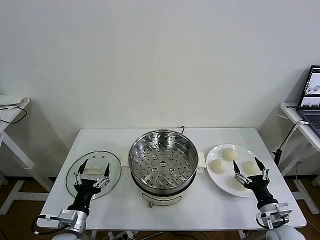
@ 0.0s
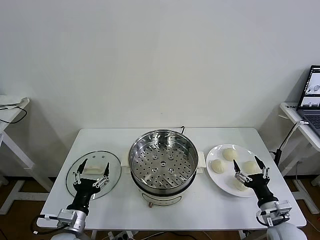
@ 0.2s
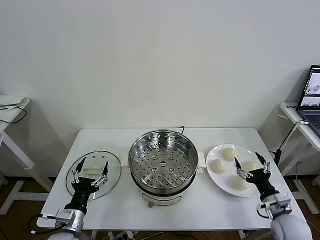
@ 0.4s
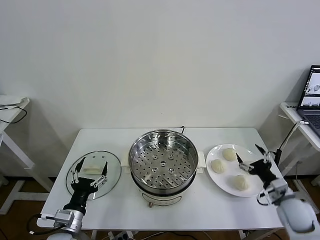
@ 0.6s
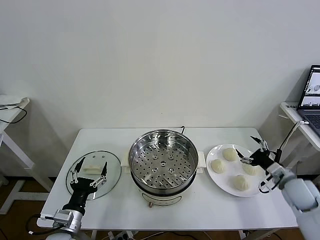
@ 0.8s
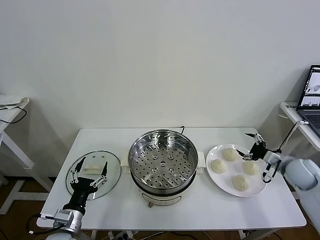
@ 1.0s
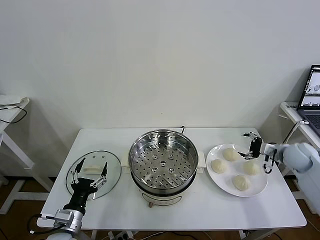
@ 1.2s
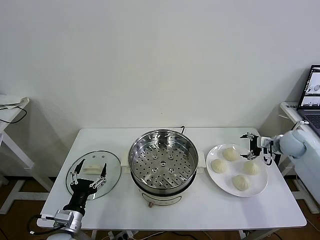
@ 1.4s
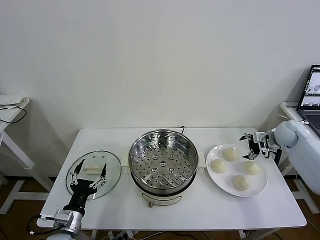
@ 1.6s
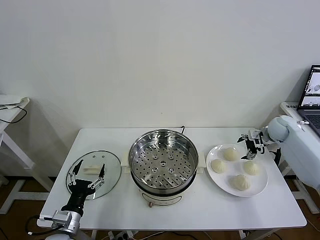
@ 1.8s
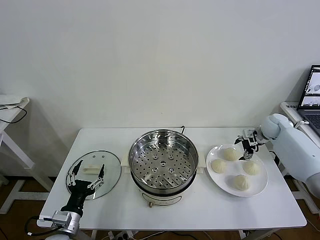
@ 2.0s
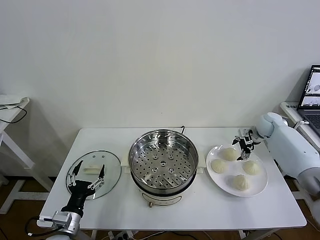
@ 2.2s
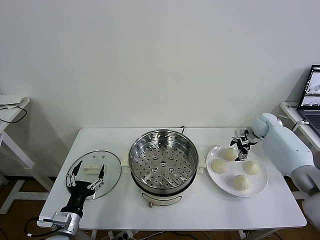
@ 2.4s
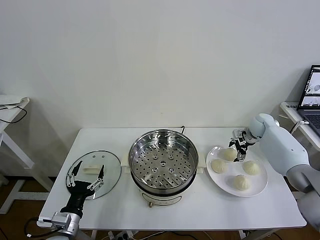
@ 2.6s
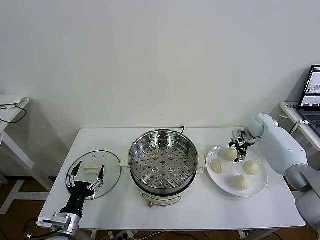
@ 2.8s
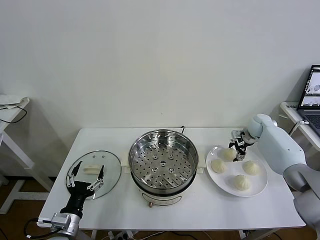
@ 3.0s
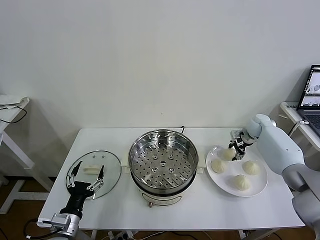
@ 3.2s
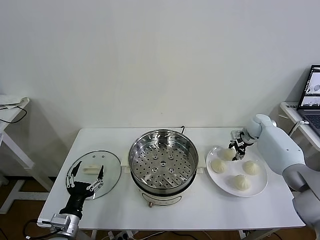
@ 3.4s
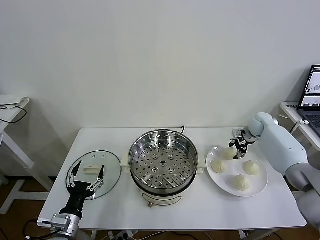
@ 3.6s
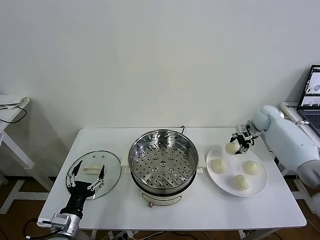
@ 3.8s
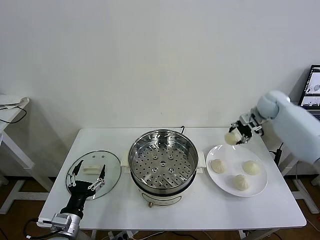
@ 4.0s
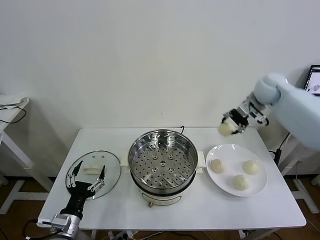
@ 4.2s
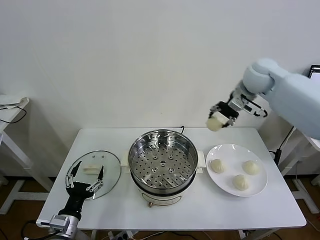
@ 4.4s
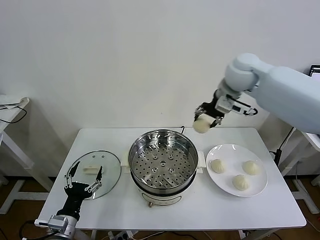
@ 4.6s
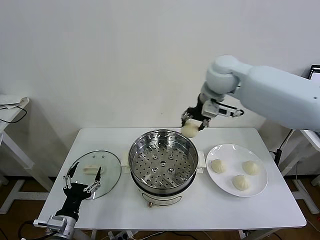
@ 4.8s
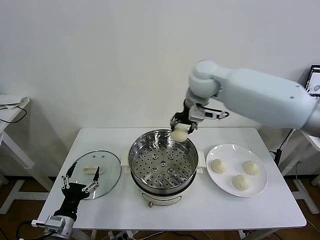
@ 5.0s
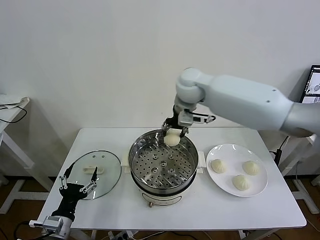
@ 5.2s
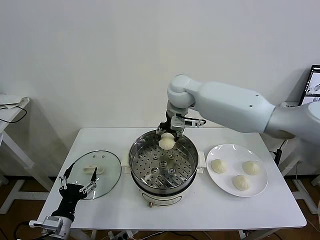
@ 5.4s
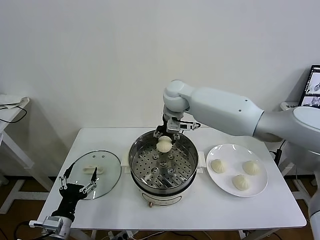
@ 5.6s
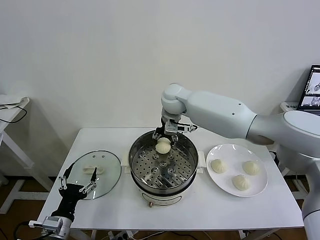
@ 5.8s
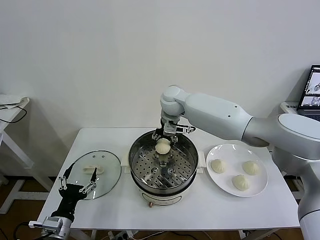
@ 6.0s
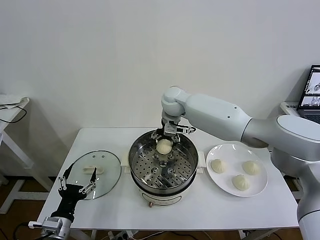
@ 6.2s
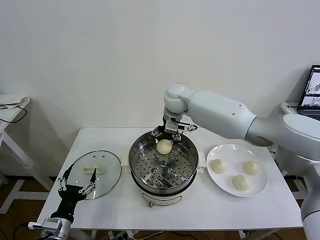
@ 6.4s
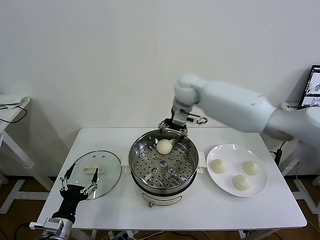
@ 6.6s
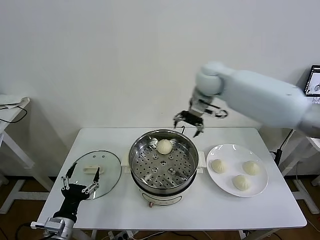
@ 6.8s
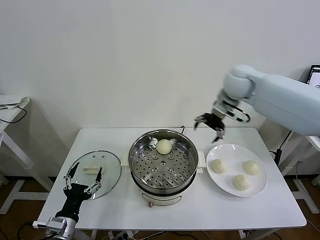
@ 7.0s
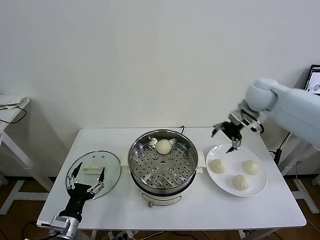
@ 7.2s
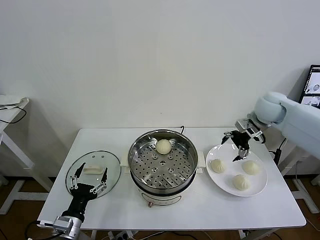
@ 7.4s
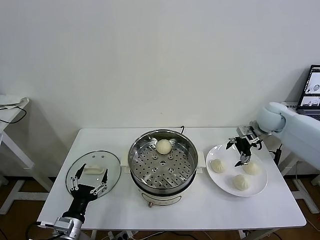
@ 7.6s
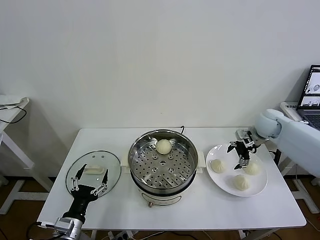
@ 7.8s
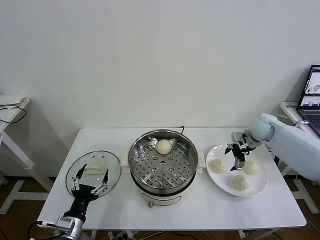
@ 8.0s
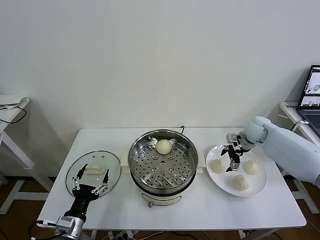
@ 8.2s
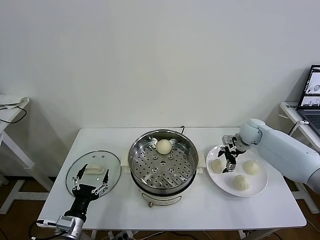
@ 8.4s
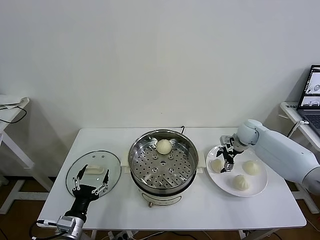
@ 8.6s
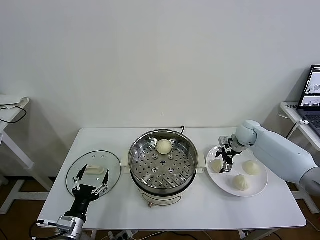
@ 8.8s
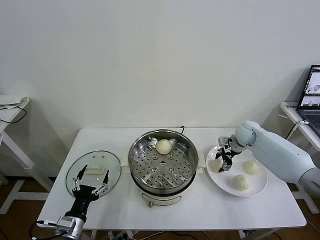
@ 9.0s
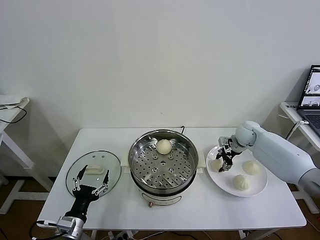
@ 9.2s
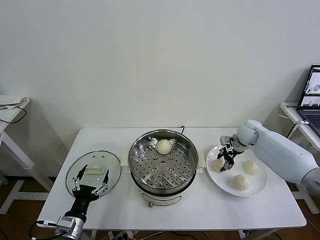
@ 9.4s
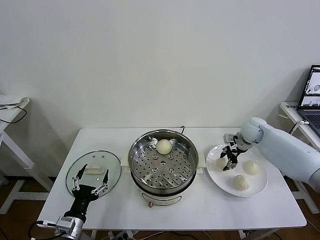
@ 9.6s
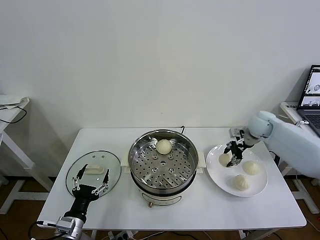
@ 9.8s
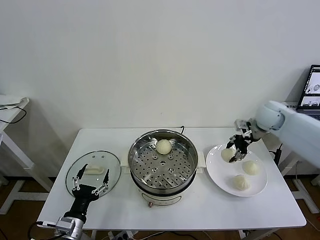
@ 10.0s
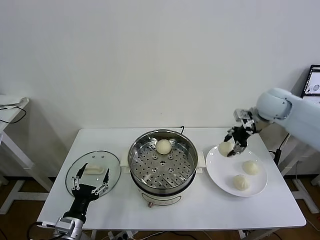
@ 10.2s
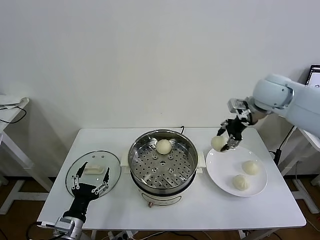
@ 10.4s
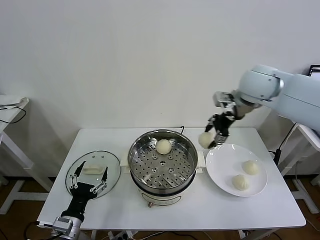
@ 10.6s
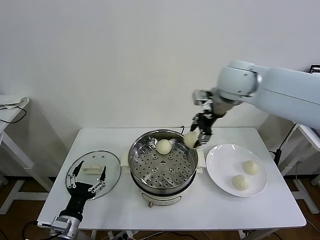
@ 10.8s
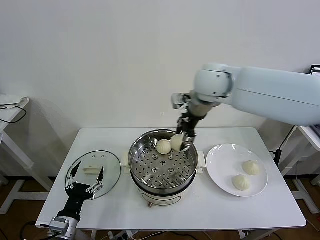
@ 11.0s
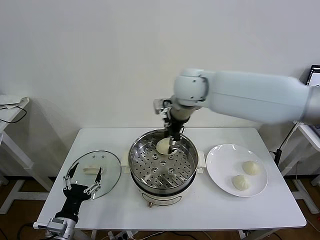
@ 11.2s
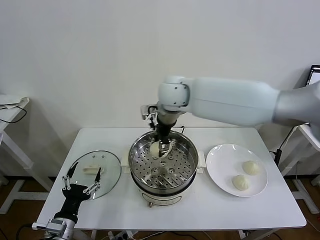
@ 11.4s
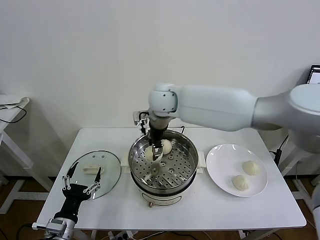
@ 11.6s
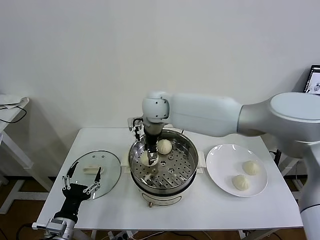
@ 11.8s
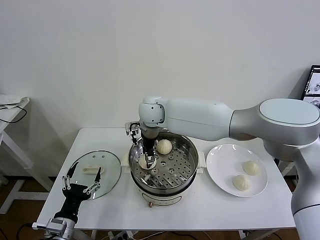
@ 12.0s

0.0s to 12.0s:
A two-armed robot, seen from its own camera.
Task of the whole recording: take steamed baozi put them in steamer then cover it.
Step, 0.0s to 3.2s: Grasp the baozi in the plate with right gripper.
Step, 3.4s to 6.2s: Place the baozi on the steamer with right gripper.
Step, 6.6s to 9.0s: Grasp the baozi in the plate with right gripper.
1.6s to 3.0s: The right gripper is displaced forward and to the left by approximately 10 cm, and closes.
3.0s to 4.4s: The right gripper shifts about 30 cm upward and to the left.
4.4s to 6.0s: The right gripper heads to the left and downward, covering about 25 cm, and opens.
6.0s to 7.6s: The right gripper goes about 35 cm to the right, and opens up.
7.6s to 9.0s: The right gripper goes some 10 cm downward, and closes its fingers.
9.0s to 10.4s: The right gripper heads upward, covering roughly 25 cm.
10.4s to 12.0s: The right gripper goes roughly 30 cm to the left.

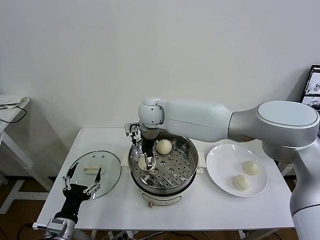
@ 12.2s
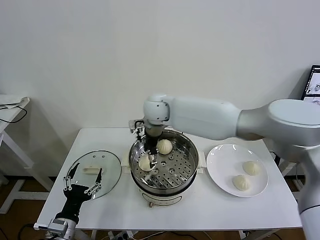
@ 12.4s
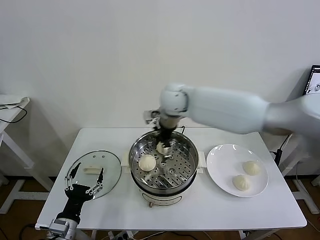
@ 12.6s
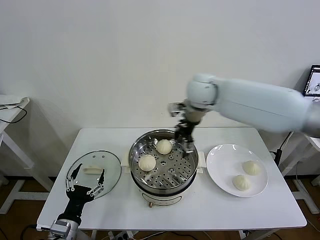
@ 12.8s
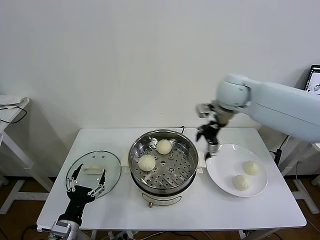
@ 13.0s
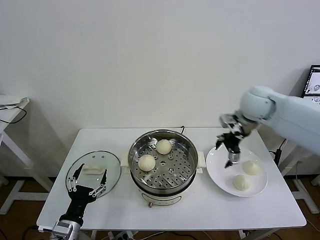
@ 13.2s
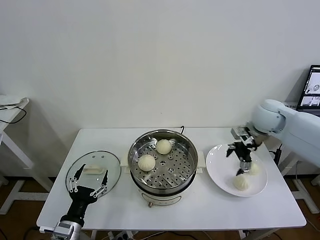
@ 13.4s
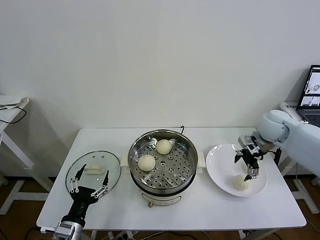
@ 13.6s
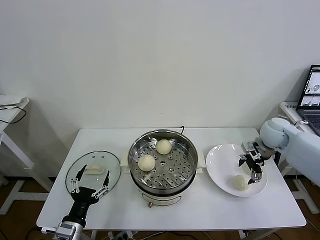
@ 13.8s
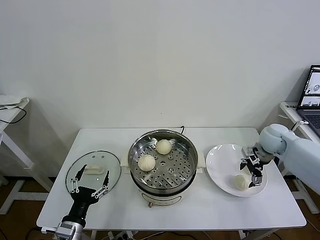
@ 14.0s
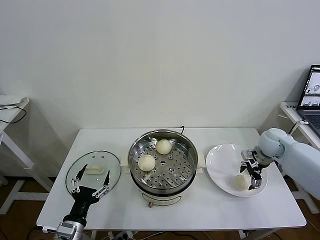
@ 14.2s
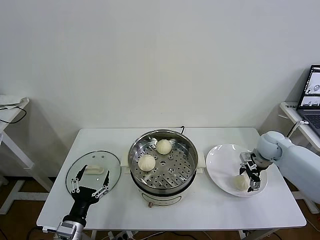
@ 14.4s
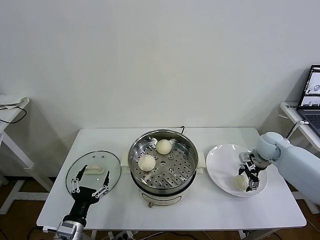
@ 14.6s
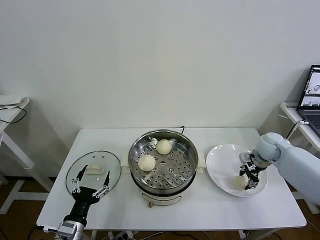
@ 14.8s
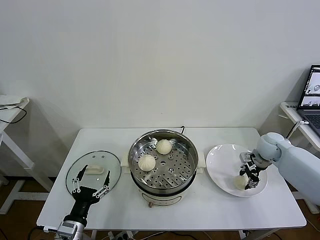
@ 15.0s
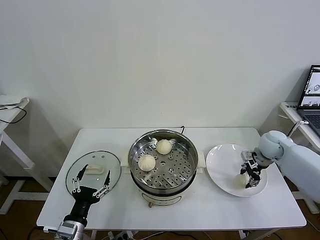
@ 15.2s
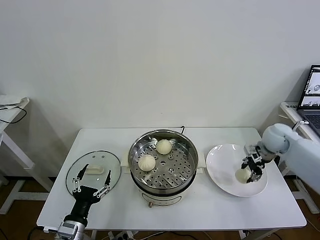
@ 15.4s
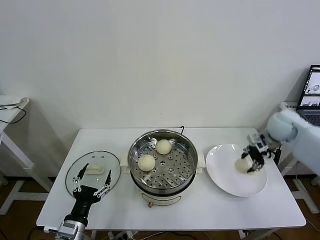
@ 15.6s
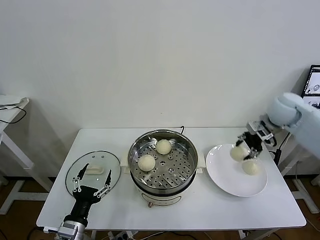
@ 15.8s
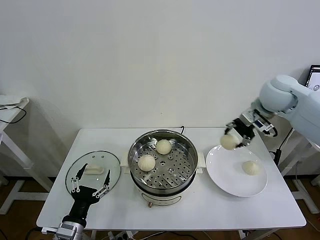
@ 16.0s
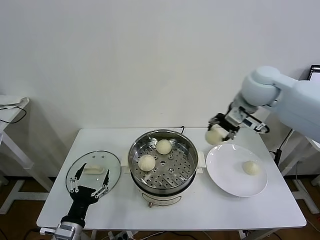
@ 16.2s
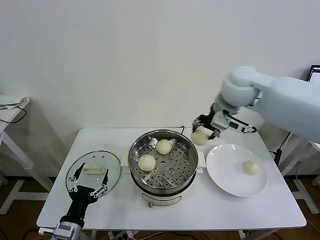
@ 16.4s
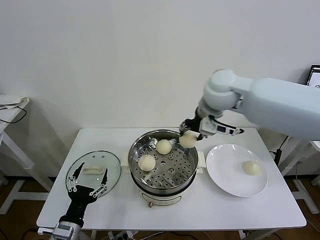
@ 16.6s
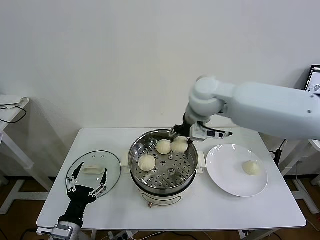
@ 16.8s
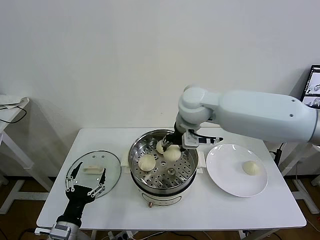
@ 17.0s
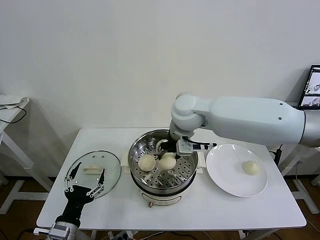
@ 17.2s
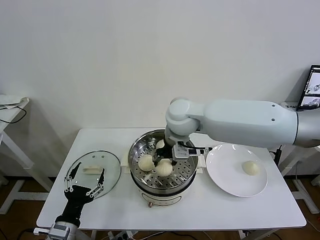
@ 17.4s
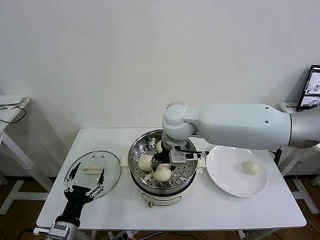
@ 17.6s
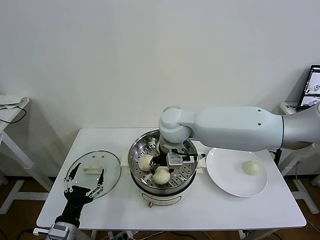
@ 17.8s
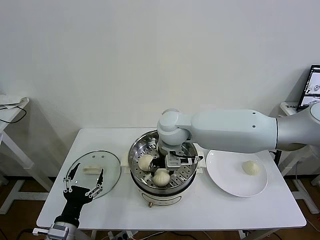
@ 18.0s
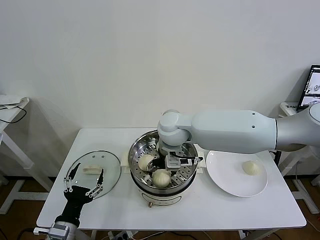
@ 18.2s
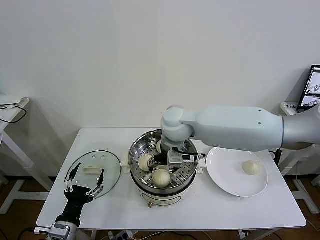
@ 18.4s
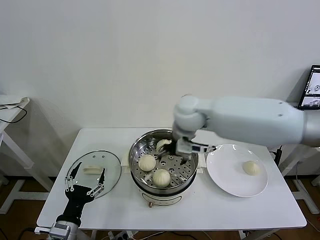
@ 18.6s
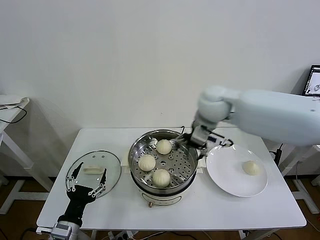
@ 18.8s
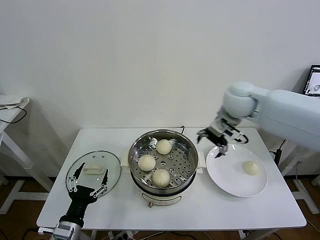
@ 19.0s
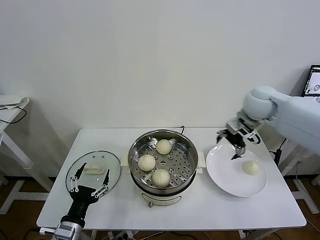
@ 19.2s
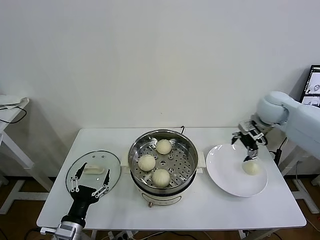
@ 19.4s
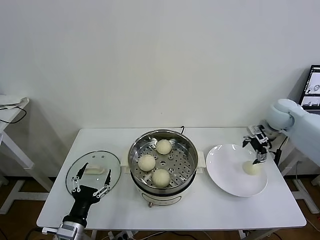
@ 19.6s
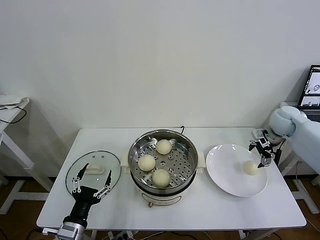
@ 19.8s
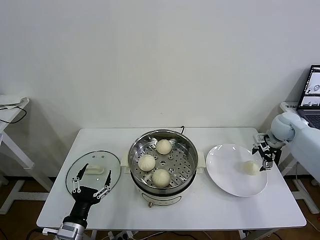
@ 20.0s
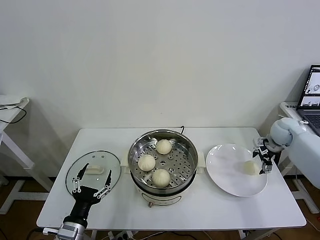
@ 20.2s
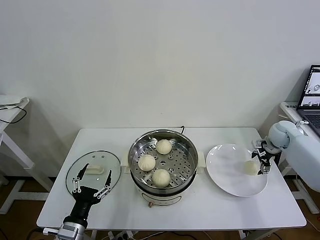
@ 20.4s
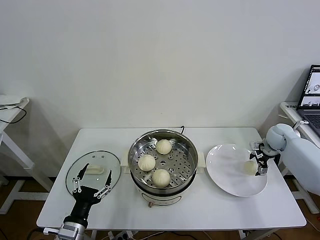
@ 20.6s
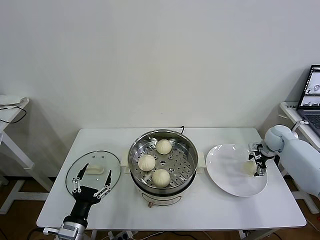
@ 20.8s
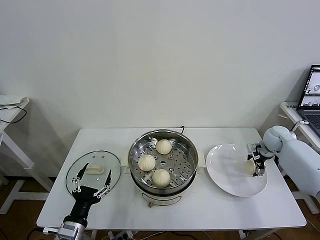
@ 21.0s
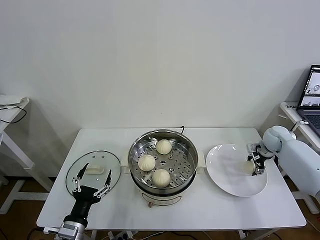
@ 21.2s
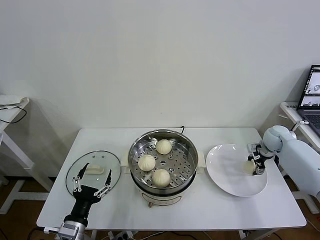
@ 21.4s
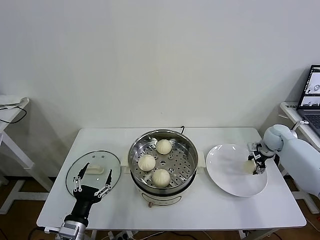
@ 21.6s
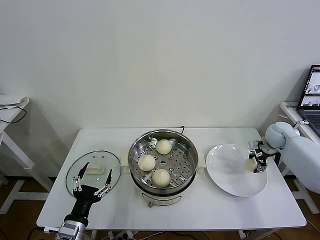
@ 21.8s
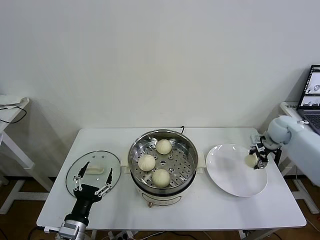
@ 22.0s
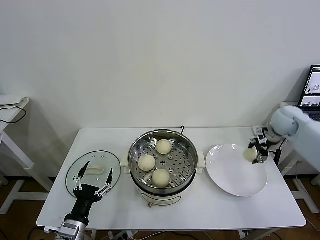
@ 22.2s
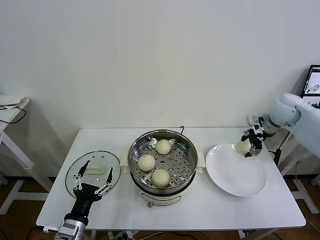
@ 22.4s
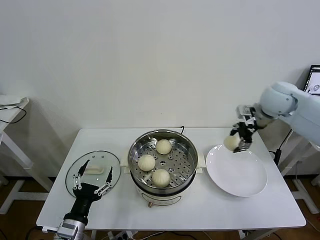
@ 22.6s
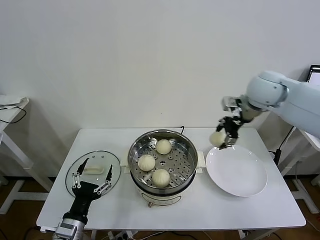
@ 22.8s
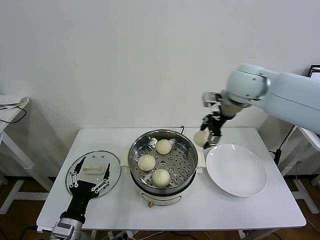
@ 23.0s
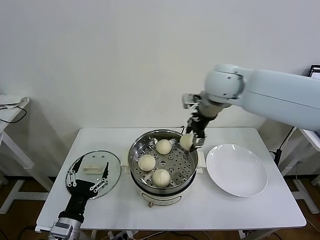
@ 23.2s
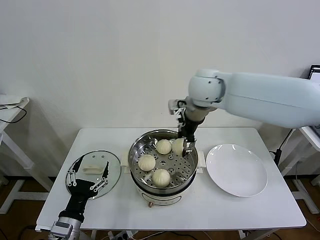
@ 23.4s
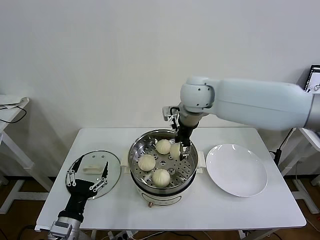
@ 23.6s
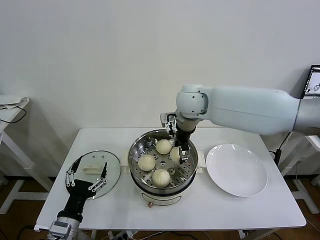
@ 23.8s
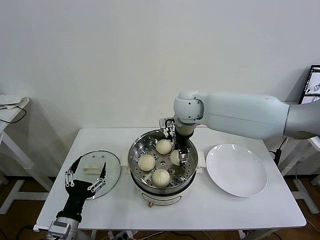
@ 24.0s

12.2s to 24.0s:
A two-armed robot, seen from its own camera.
Task of the whole recording: take steamed baozi put them in steamer then cover it.
Step, 12.6s to 15.0s: Grasp the baozi in the plate with right gripper.
Step, 15.2s to 18.4s: Place the baozi on the steamer with right gripper.
Step, 18.6s to 21.6s: Grasp the baozi in the plate with right gripper.
12.2s to 13.6s: The right gripper moves to the right, approximately 40 cm.
13.6s to 15.2s: The right gripper shifts roughly 5 cm downward, and closes its fingers.
15.2s to 16.6s: The right gripper heads to the left and upward, covering some 35 cm.
16.6s to 18.2s: The right gripper shifts roughly 15 cm downward and to the left, and opens.
18.2s to 19.6s: The right gripper heads to the right, covering about 35 cm.
19.6s to 21.0s: The right gripper moves downward, some 15 cm.
21.0s to 22.6s: The right gripper is displaced upward and to the left by some 25 cm, and closes up.
22.6s to 24.0s: The right gripper moves to the left, approximately 25 cm.
